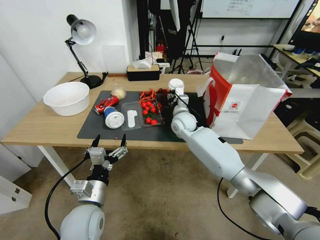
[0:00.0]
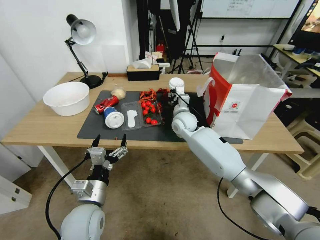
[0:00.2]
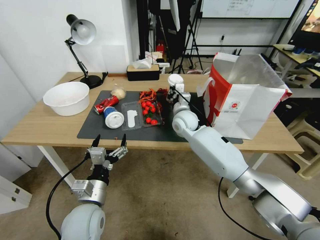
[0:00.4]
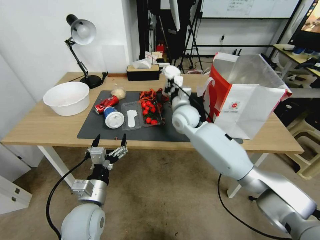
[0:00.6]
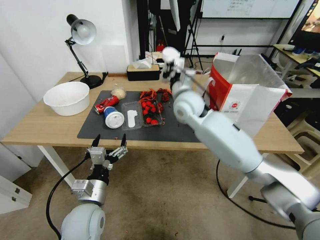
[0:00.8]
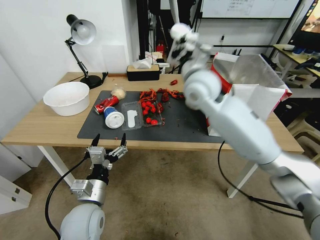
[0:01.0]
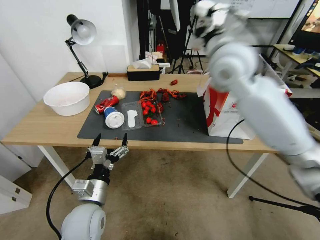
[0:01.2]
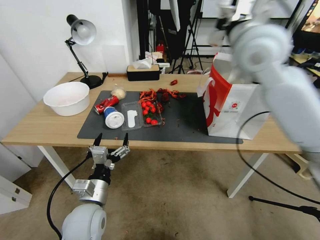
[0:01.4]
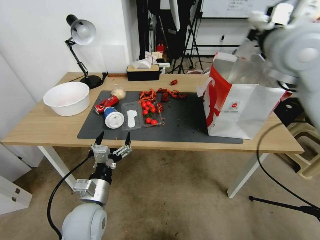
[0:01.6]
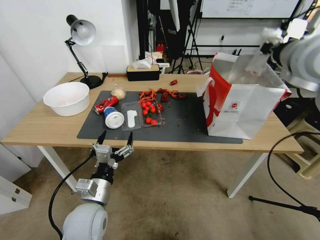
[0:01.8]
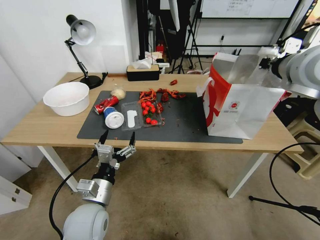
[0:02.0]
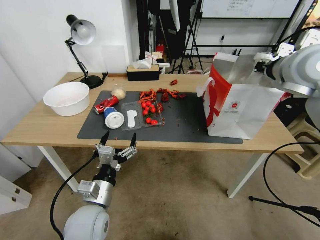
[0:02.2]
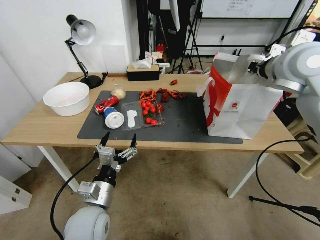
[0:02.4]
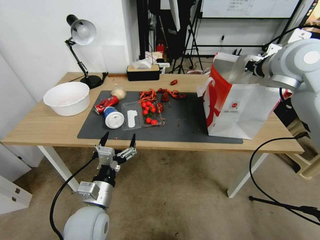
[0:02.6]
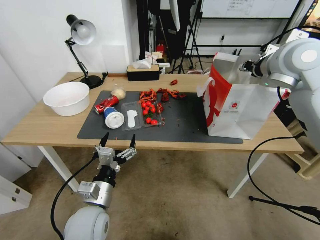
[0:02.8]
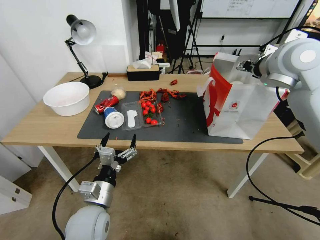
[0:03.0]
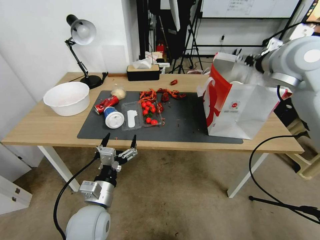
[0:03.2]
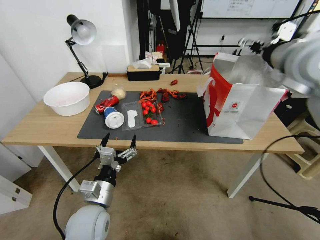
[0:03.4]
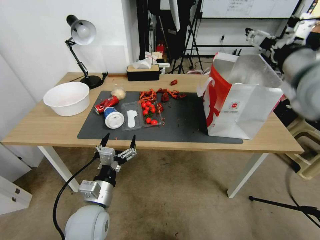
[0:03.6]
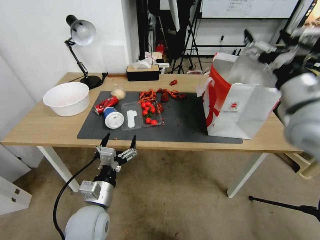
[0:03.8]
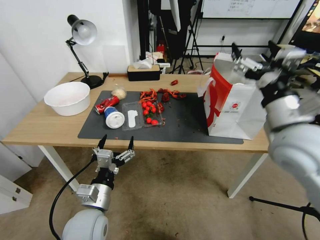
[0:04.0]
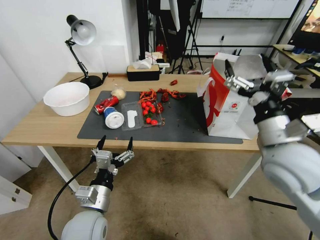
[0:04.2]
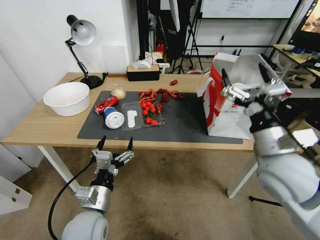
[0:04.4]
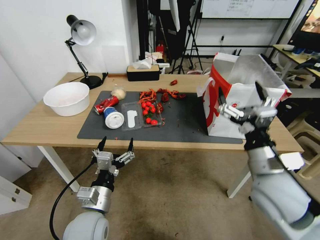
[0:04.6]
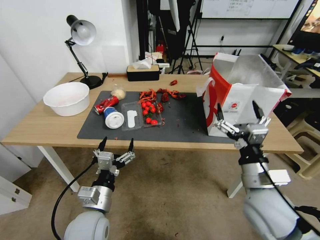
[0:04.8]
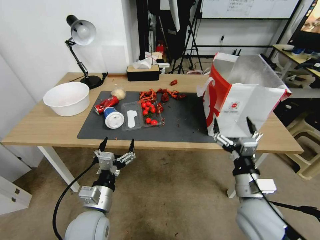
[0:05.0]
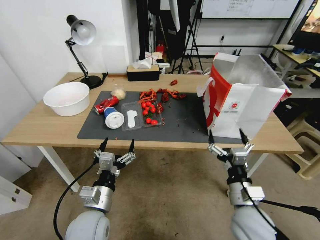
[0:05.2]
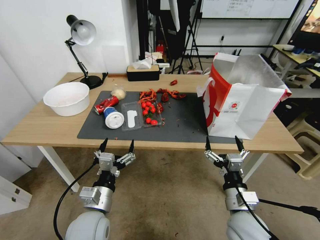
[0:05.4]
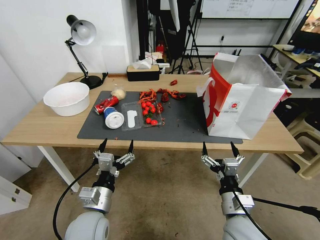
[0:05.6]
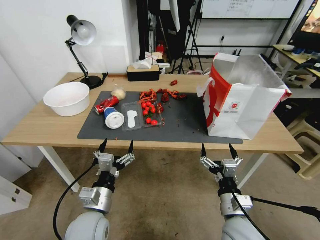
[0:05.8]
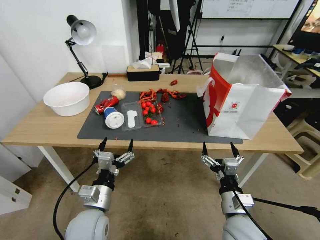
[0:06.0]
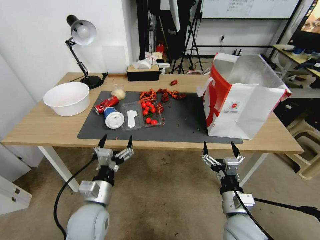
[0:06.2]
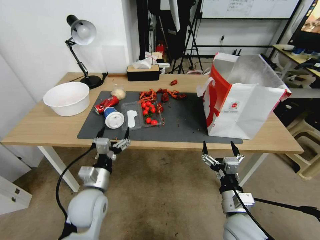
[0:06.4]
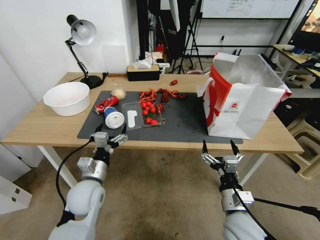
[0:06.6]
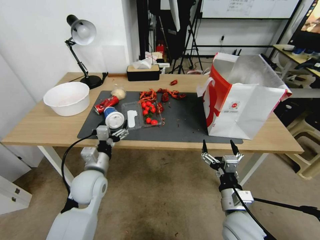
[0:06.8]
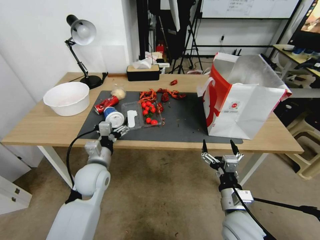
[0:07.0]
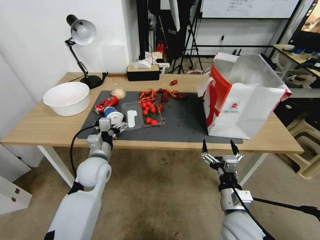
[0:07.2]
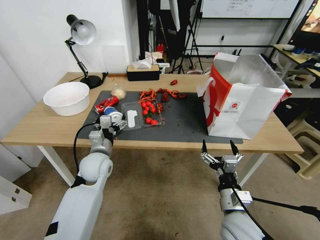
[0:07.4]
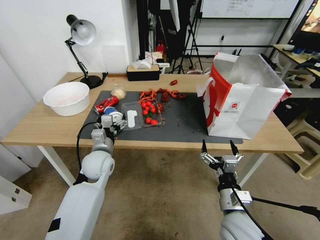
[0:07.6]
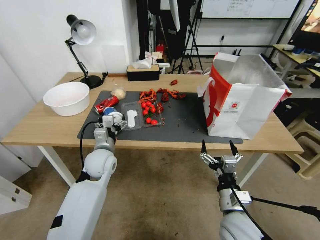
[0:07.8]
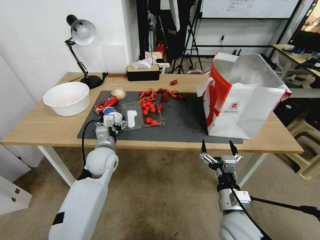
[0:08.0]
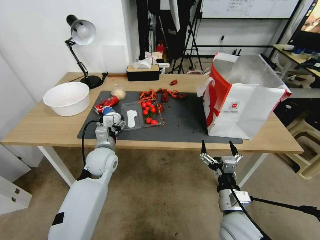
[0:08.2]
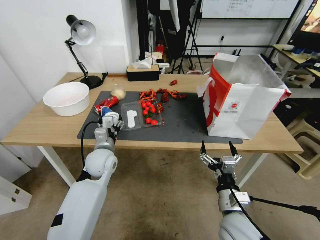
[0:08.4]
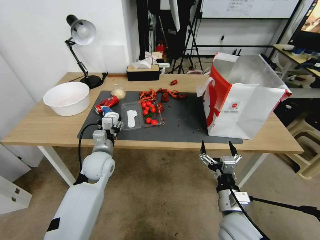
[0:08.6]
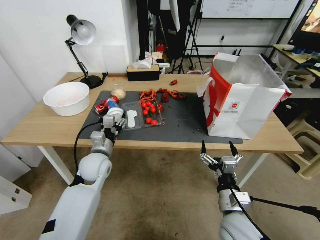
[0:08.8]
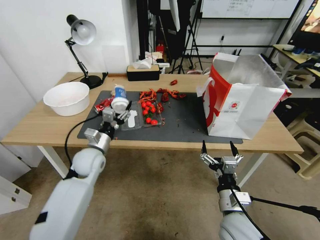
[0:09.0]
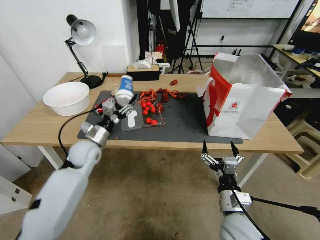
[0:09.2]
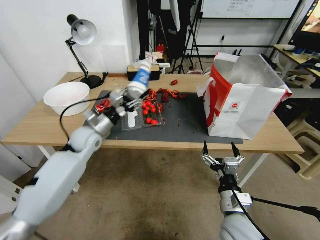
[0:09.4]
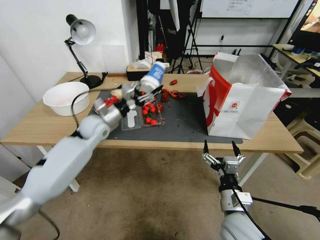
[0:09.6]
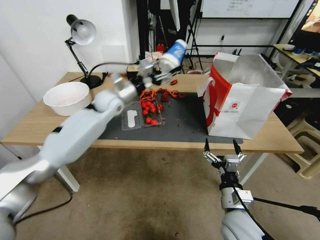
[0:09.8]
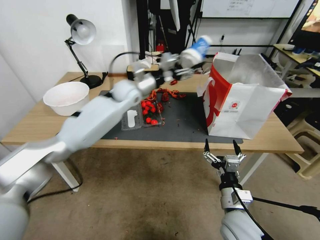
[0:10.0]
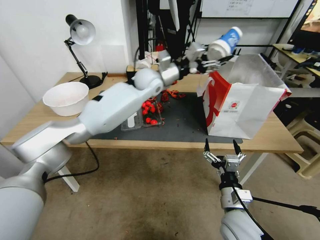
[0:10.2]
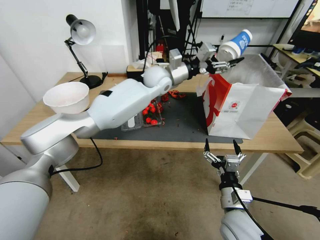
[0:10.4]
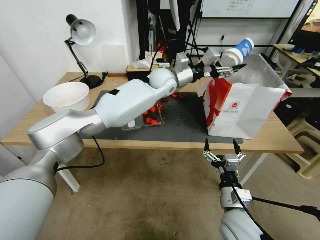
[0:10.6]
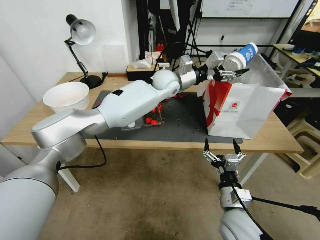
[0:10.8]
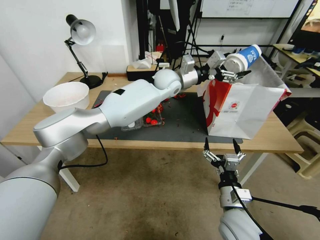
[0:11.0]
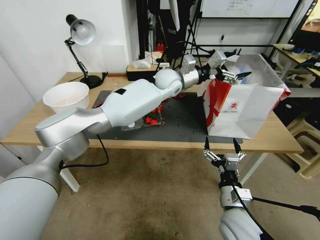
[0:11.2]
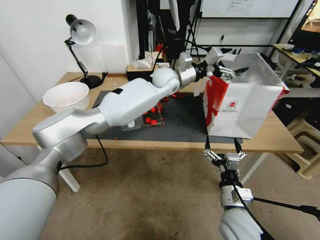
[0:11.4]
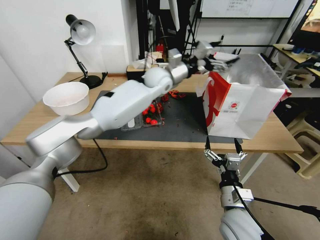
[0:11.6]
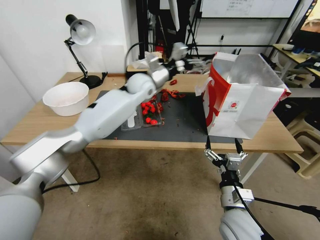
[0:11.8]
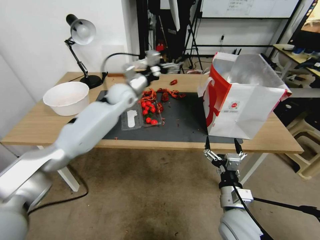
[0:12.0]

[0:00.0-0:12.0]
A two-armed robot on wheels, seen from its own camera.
0:00.0 to 0:01.6: The right gripper moves upward and to the right, about 40 cm, and closes up.
0:01.6 to 0:03.0: The right gripper moves roughly 5 cm, and opens its fingers.
0:03.0 to 0:04.4: The right gripper is displaced backward and downward by approximately 25 cm, and opens its fingers.
0:04.4 to 0:06.0: The right gripper is displaced downward and backward by some 20 cm.
0:06.0 to 0:07.6: The left gripper shifts approximately 15 cm forward.
0:07.6 to 0:09.0: The left gripper closes up.
0:09.0 to 0:10.4: The left gripper travels to the right, upward and forward by approximately 35 cm.
0:10.4 to 0:12.0: The left gripper reaches about 5 cm to the right, then returns, and opens up.

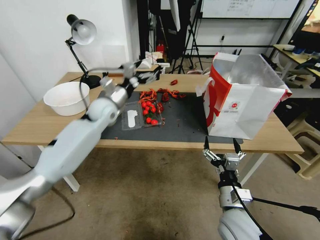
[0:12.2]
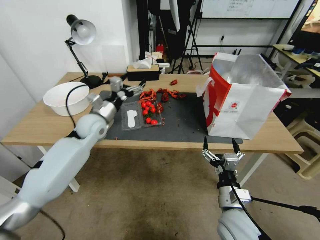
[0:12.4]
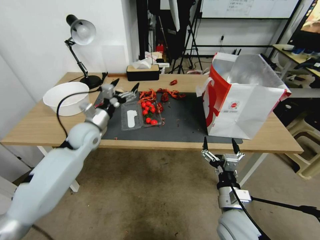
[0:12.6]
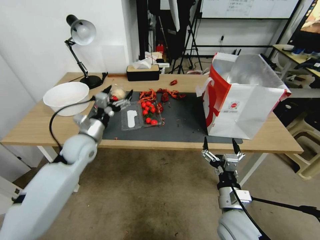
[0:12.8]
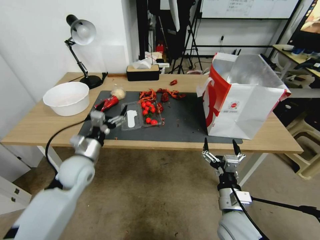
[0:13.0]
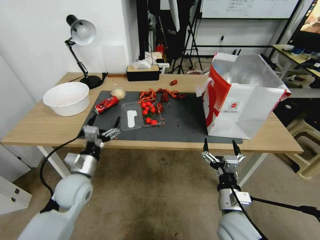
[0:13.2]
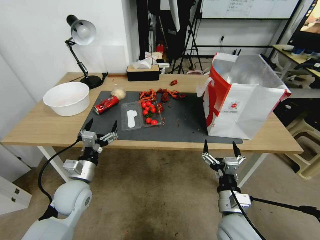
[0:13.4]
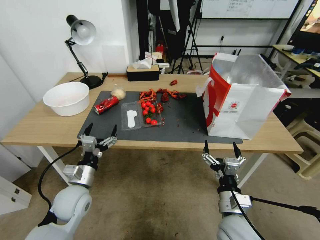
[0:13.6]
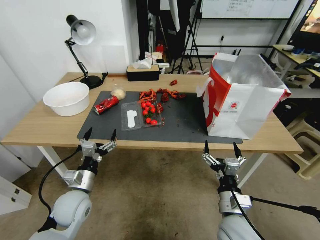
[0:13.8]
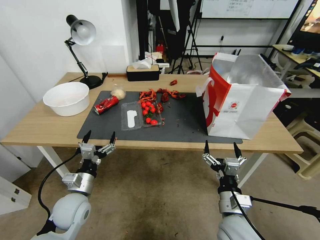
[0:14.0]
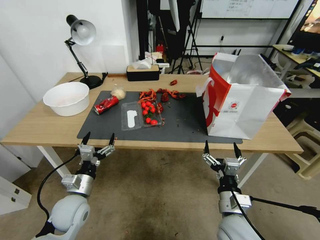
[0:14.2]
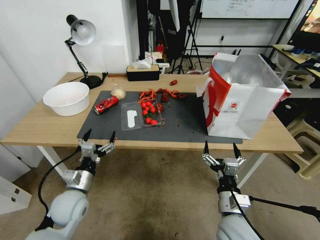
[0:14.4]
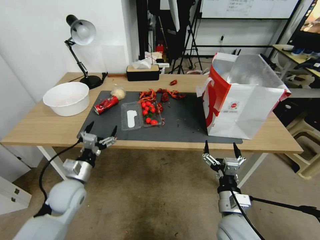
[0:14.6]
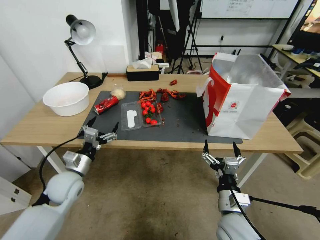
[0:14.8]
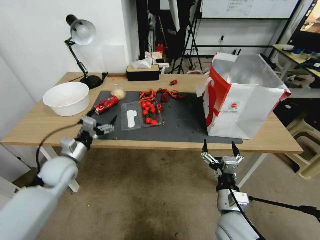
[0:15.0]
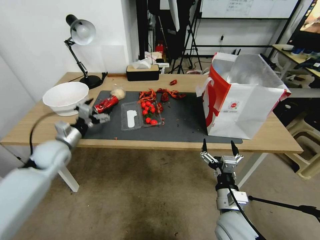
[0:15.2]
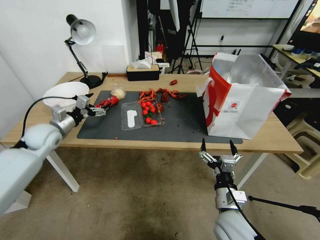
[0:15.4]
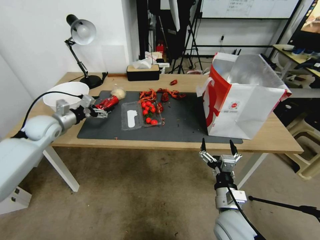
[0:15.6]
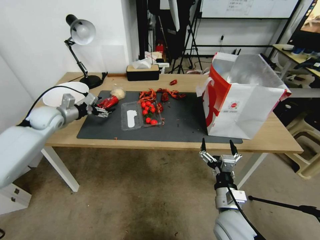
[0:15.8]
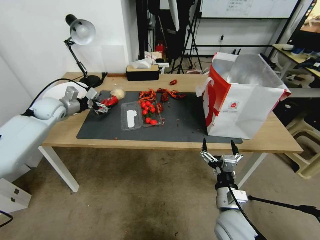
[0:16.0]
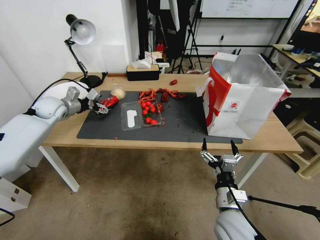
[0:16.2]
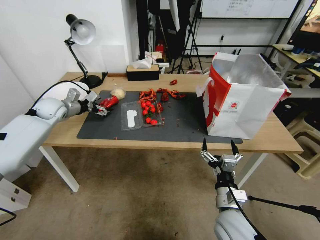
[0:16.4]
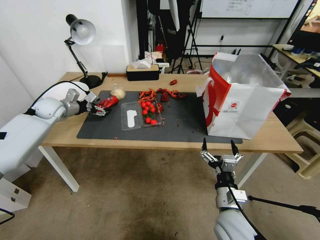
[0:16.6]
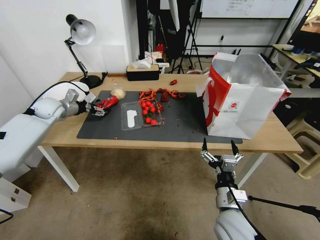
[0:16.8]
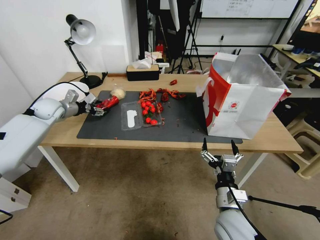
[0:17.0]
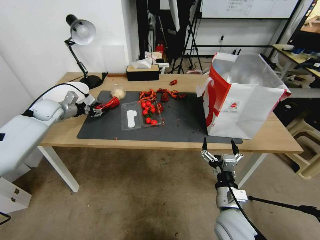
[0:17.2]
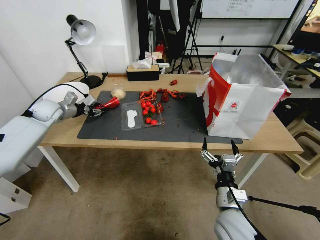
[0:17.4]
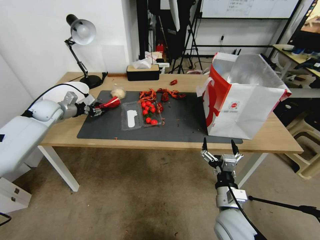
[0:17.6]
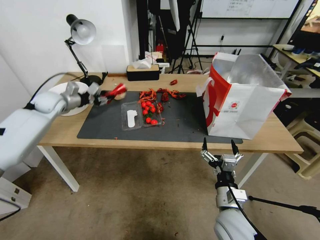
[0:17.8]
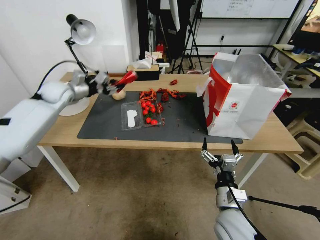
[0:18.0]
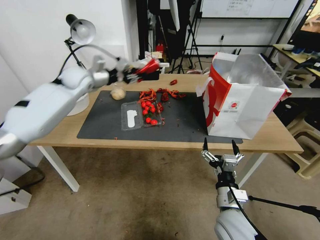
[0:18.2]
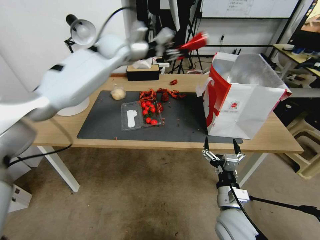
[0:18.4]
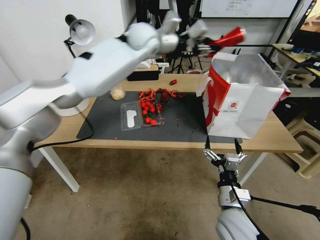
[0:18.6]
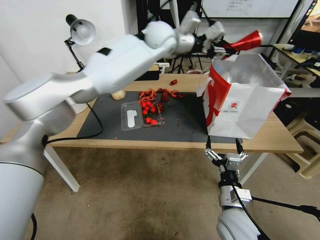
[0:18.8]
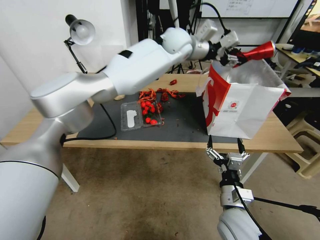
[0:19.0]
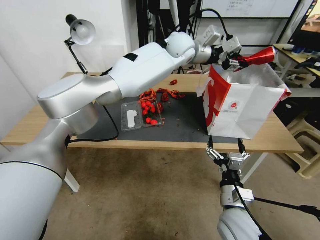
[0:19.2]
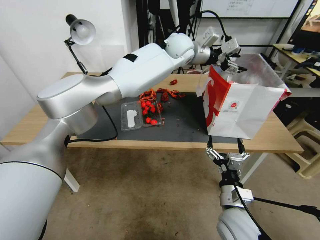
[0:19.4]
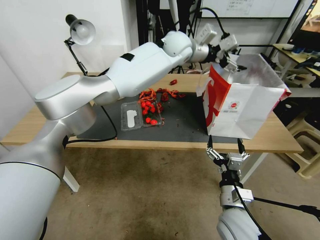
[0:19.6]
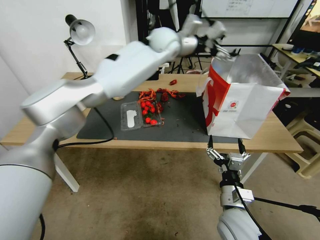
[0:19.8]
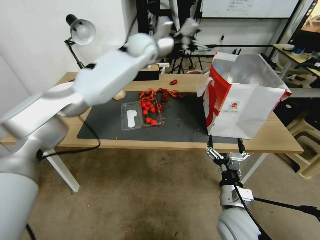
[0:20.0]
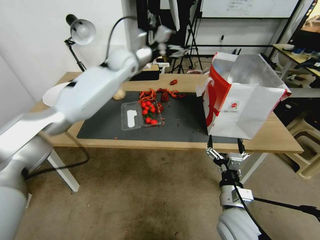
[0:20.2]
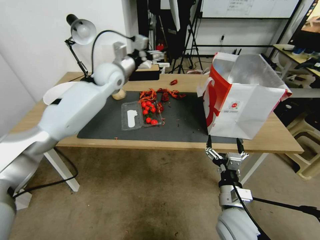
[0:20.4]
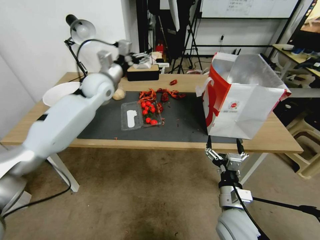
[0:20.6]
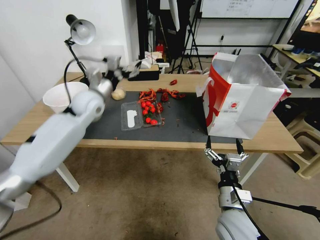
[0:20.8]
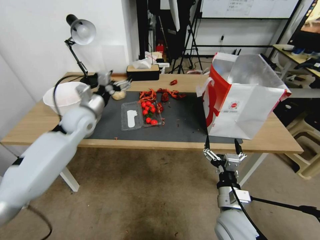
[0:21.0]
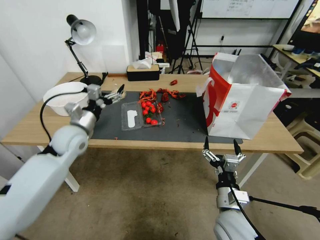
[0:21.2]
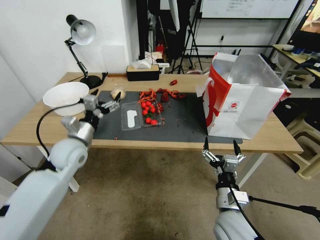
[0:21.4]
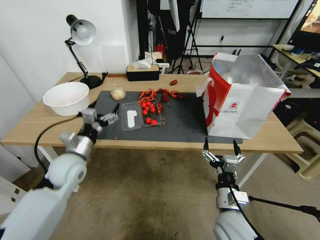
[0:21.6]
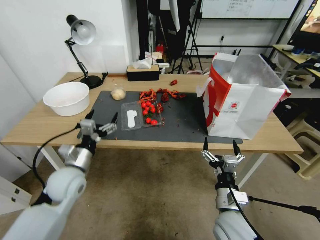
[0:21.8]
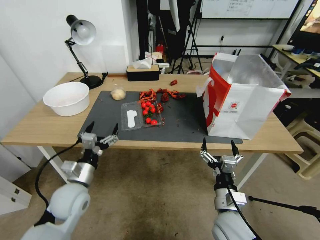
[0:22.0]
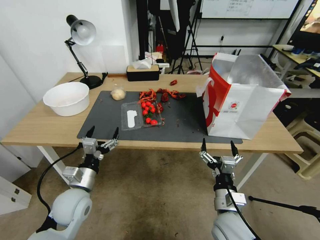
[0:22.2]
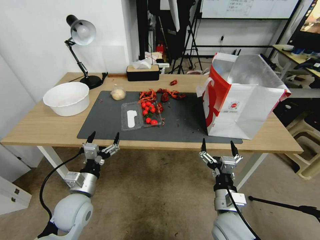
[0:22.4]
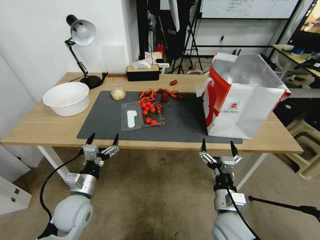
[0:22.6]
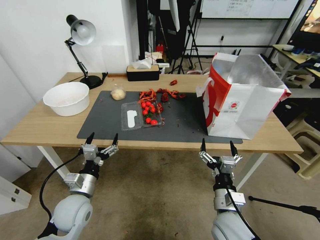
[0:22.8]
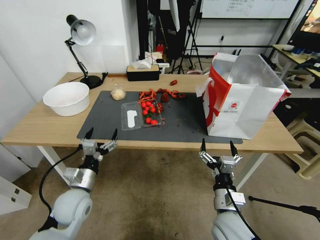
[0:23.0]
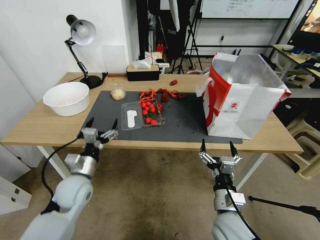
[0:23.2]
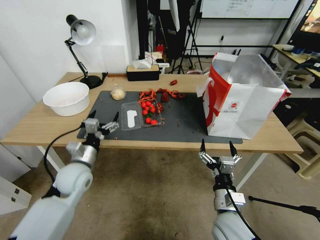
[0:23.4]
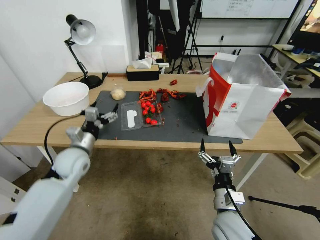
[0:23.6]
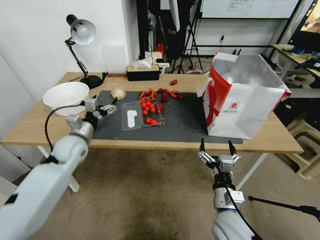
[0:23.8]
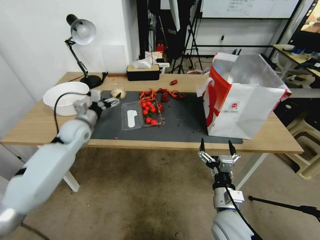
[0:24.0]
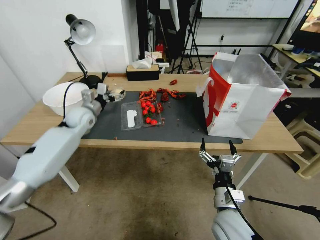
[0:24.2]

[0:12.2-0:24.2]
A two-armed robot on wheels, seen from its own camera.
0:12.2 to 0:13.8: The left gripper moves backward, downward and to the left, about 40 cm.
0:13.8 to 0:15.2: The left gripper shifts about 10 cm forward and to the left.
0:15.2 to 0:16.6: The left gripper shifts roughly 25 cm forward, upward and to the left.
0:16.6 to 0:18.2: The left gripper moves to the right and upward, about 15 cm, and closes up.
0:18.2 to 0:19.8: The left gripper travels to the right by approximately 30 cm, and opens its fingers.
0:19.8 to 0:21.2: The left gripper heads to the left, downward and backward, covering roughly 40 cm.
0:21.2 to 0:22.6: The left gripper goes about 20 cm backward and downward.
0:22.6 to 0:24.2: The left gripper heads forward, covering approximately 30 cm.
